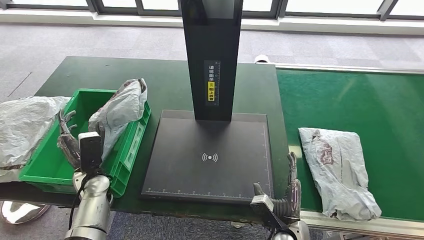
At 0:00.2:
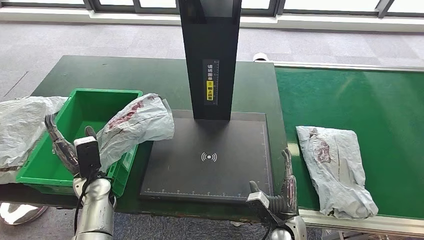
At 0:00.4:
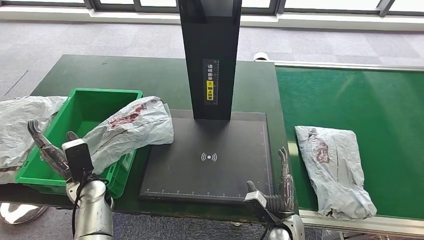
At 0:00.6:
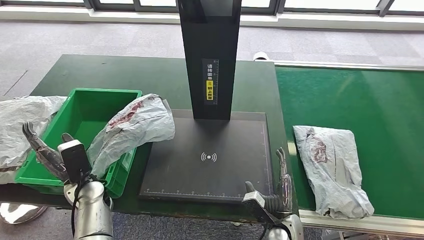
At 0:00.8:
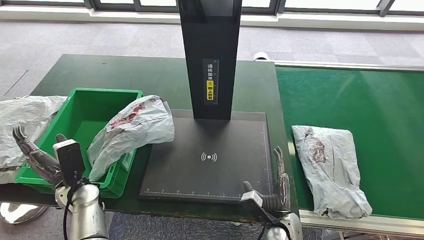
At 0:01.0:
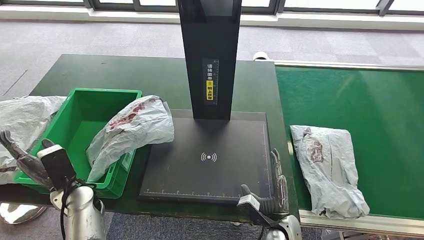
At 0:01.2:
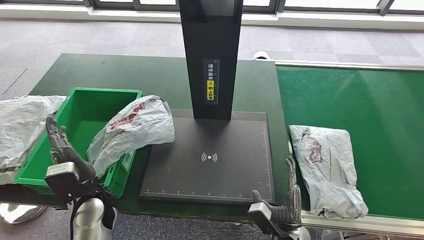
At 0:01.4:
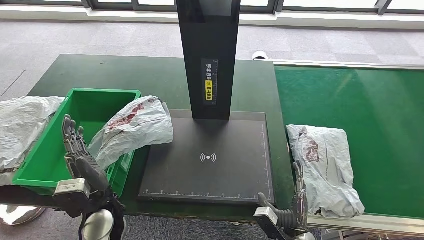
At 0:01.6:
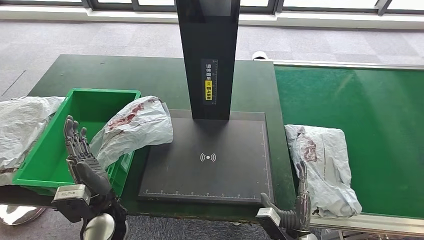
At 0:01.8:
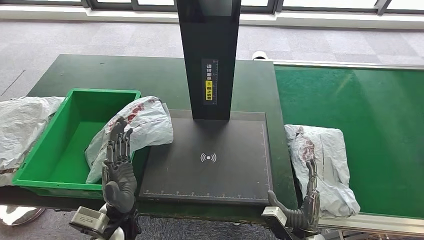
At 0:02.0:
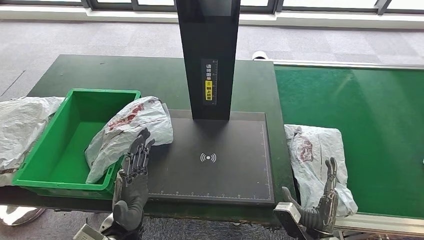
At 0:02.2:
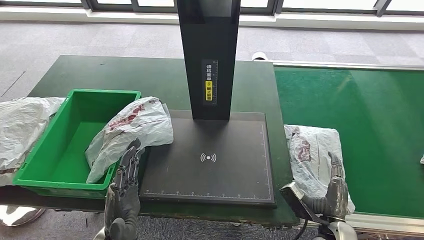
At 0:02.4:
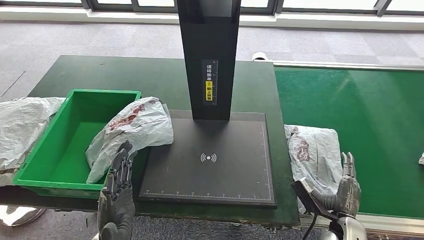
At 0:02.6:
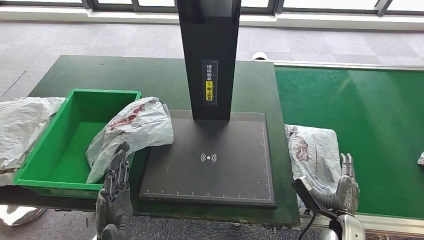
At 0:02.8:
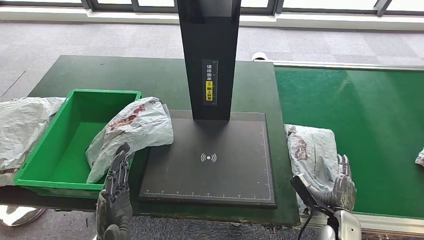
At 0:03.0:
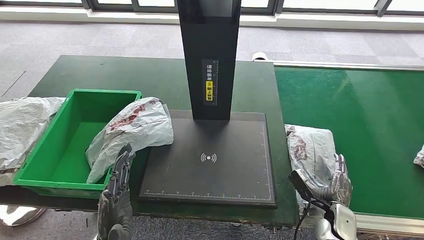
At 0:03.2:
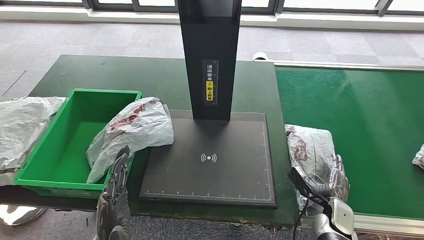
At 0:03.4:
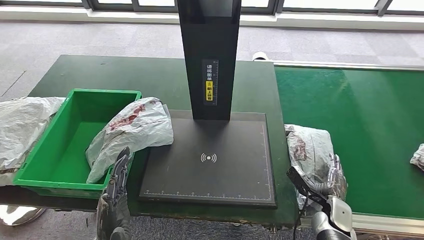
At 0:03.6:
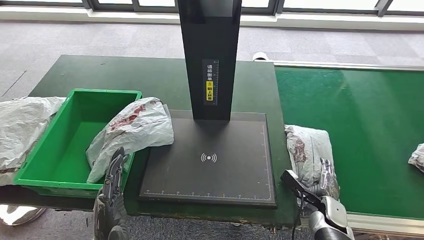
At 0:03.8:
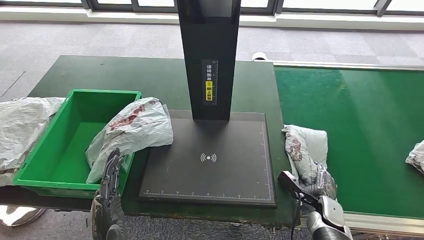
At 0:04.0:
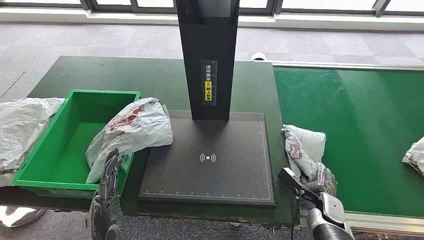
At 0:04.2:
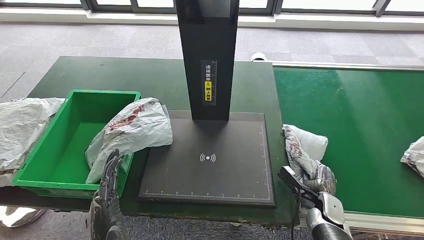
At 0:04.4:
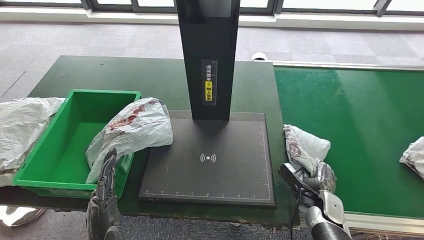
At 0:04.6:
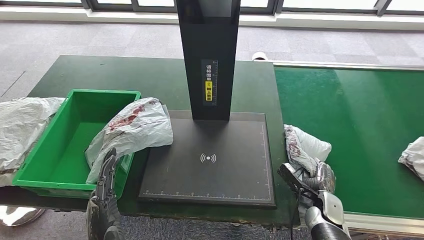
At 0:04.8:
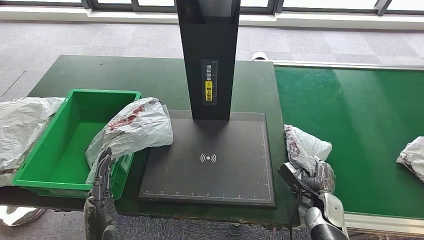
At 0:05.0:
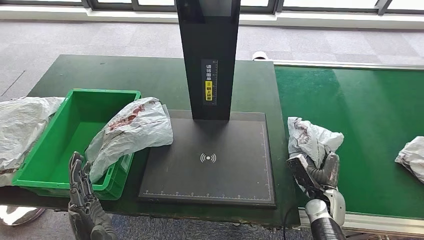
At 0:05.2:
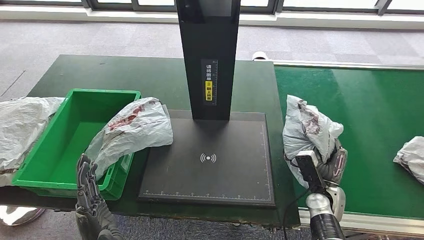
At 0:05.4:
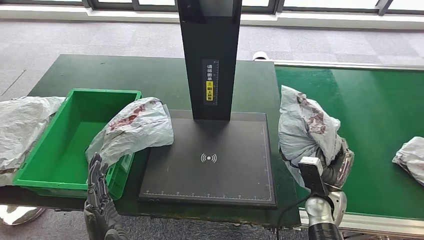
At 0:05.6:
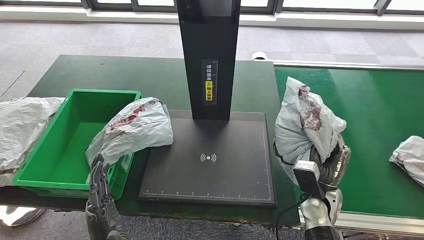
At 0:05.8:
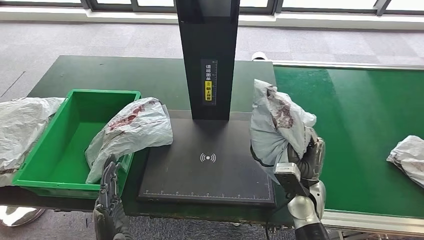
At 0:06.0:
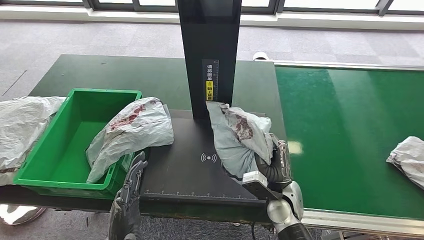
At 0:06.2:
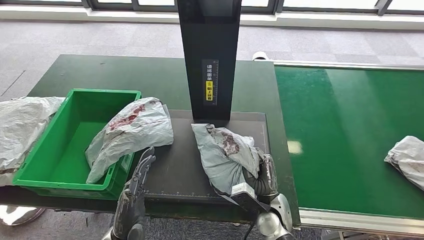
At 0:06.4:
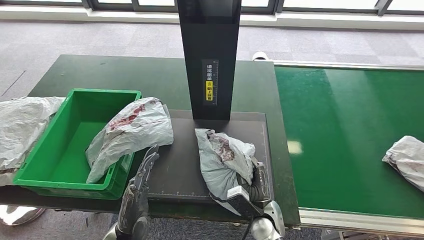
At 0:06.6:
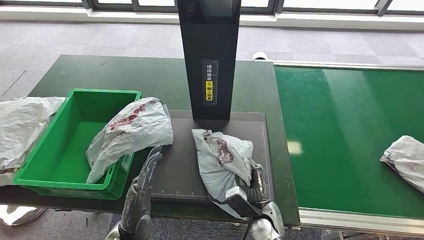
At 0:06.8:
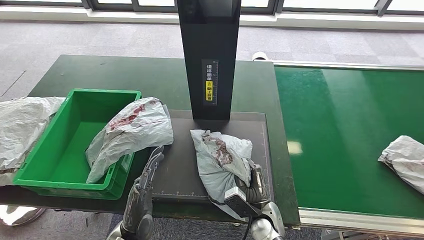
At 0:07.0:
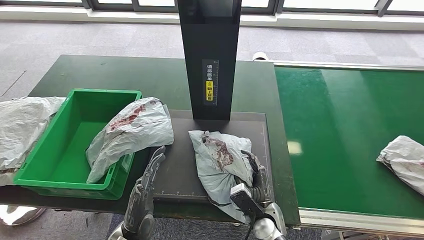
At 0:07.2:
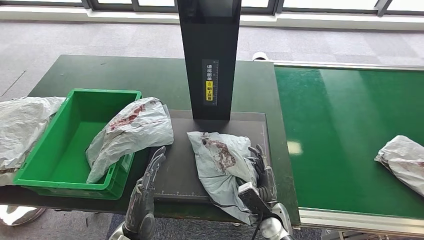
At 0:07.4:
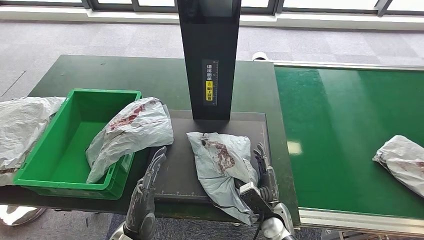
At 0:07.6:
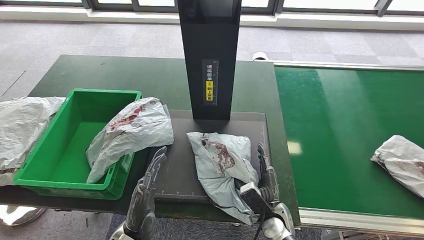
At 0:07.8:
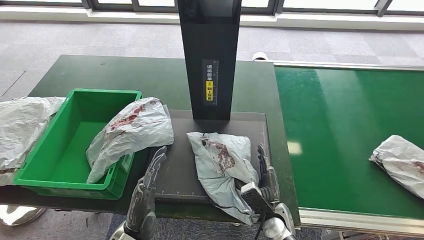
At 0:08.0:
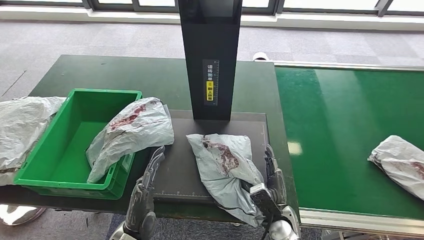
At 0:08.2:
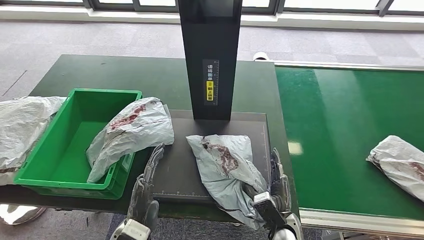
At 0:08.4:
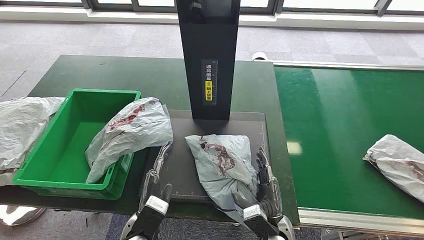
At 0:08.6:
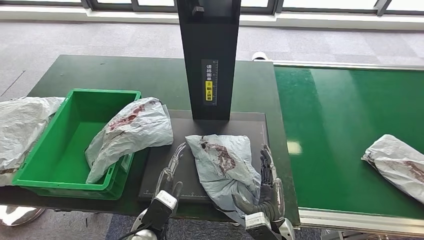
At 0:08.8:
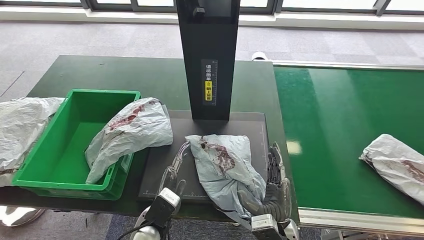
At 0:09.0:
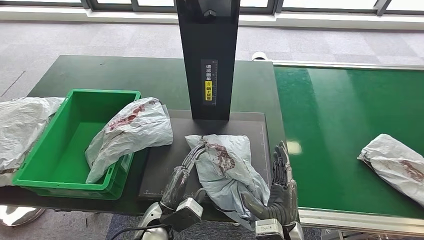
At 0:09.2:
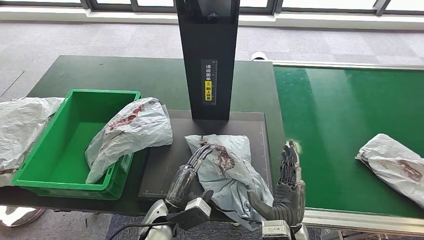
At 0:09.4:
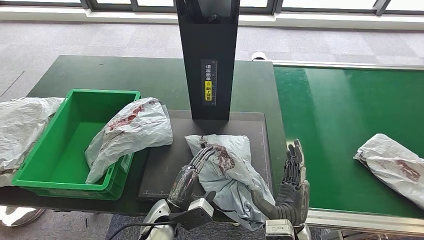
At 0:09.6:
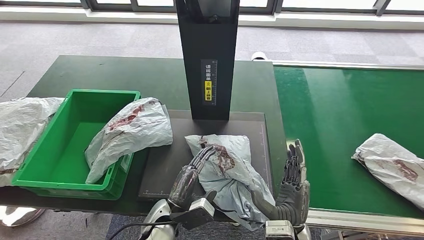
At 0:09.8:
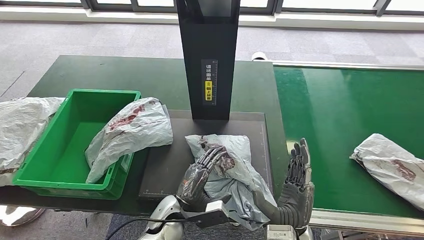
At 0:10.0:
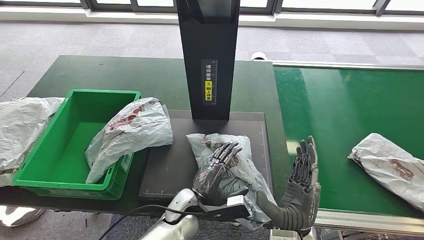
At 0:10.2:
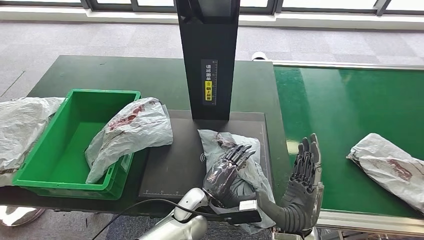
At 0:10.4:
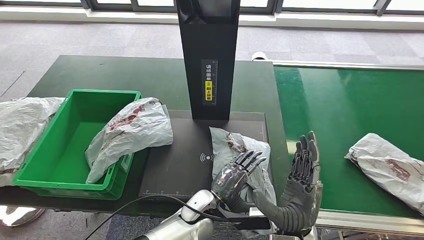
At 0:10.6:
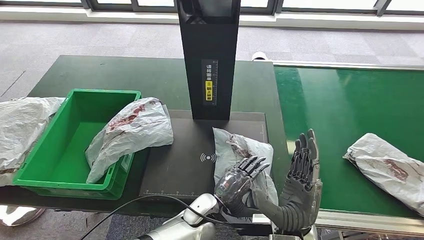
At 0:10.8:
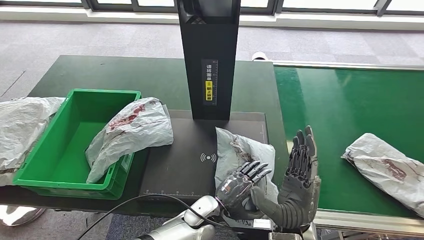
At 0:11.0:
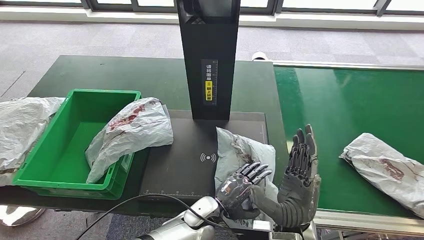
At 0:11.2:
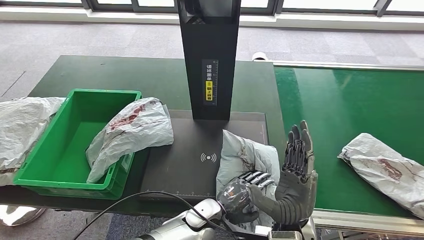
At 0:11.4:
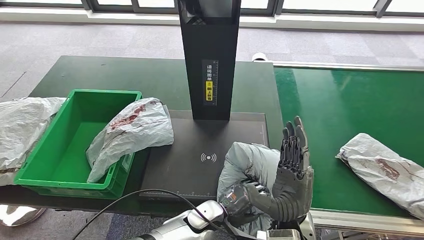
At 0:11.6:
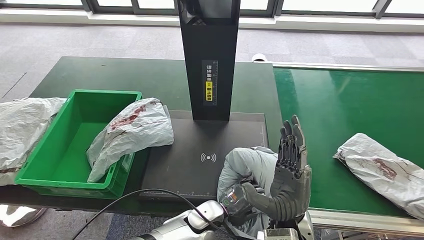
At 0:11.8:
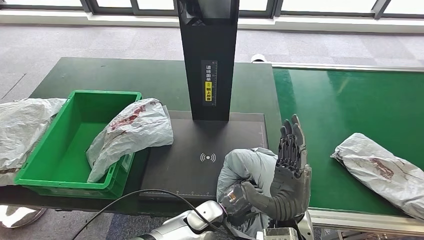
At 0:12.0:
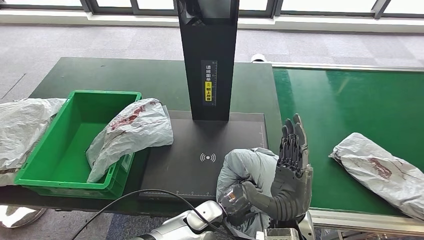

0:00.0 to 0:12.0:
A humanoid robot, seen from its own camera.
Step, 0:01.6 to 0:05.4: Pick up the parcel from the conveyor belt.
Step, 0:06.0 to 0:08.8: Place the parcel onto the inbound machine.
0:01.6 to 0:03.0: The right hand is displaced to the right and forward by approximately 15 cm. Meanwhile the left hand is displaced backward by some 10 cm.
0:03.0 to 0:04.4: The hands stay close to where they were, moving slightly.
0:06.0 to 0:07.6: The right hand heads downward, covering about 10 cm.
0:07.6 to 0:09.0: The right hand is displaced upward and backward by about 10 cm. The left hand moves some 10 cm.
0:09.0 to 0:10.4: The left hand shifts some 10 cm to the right. Meanwhile the right hand travels upward by about 5 cm.

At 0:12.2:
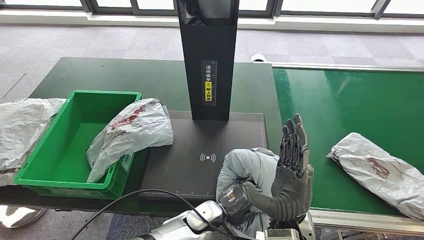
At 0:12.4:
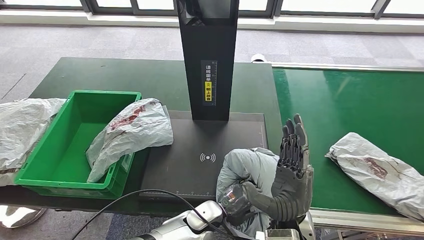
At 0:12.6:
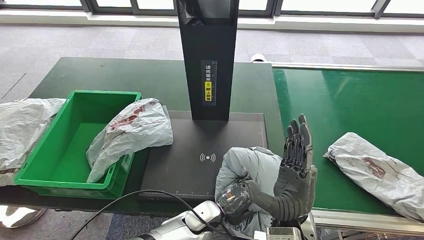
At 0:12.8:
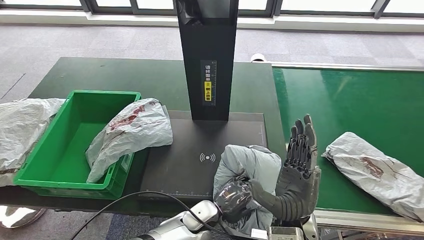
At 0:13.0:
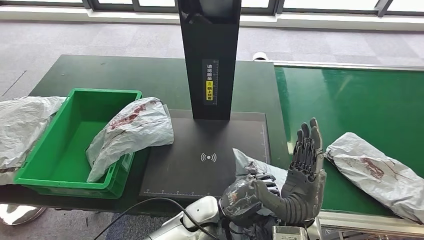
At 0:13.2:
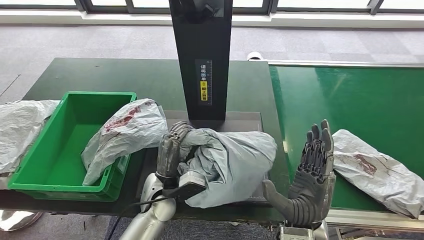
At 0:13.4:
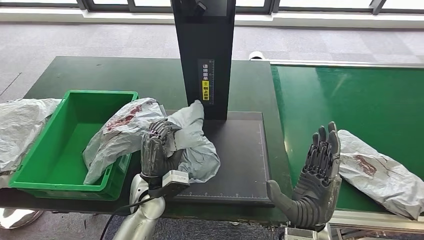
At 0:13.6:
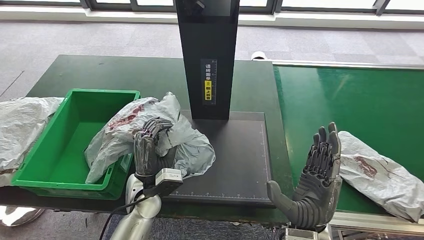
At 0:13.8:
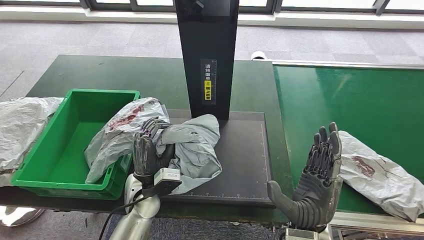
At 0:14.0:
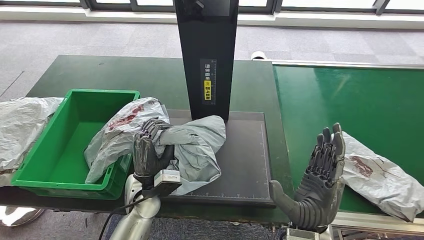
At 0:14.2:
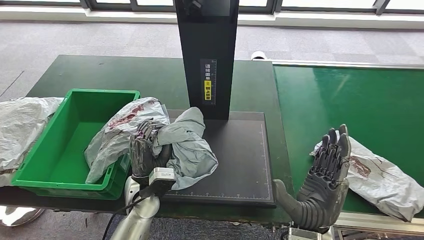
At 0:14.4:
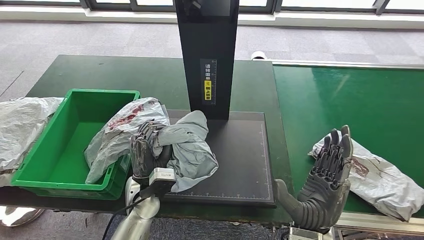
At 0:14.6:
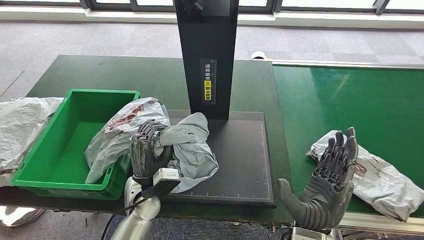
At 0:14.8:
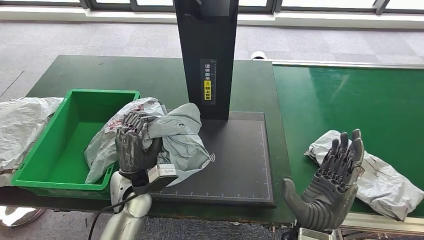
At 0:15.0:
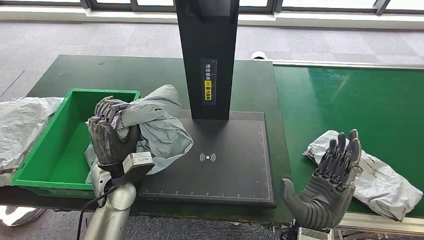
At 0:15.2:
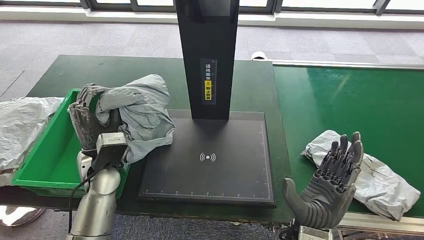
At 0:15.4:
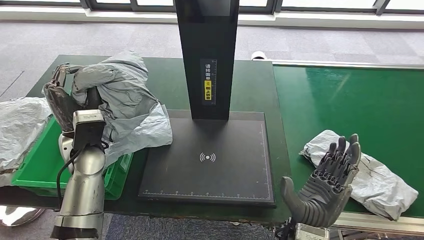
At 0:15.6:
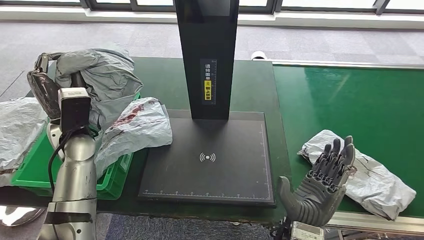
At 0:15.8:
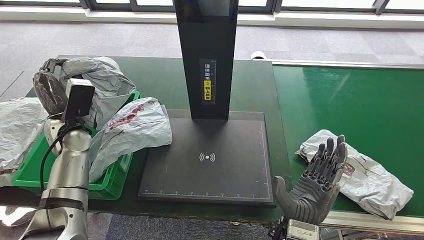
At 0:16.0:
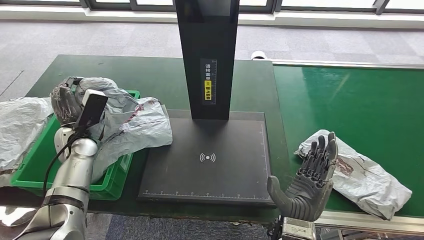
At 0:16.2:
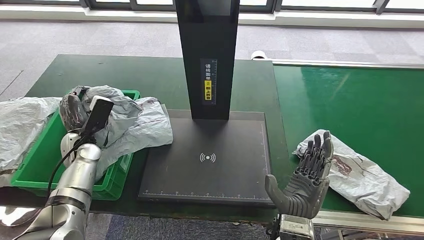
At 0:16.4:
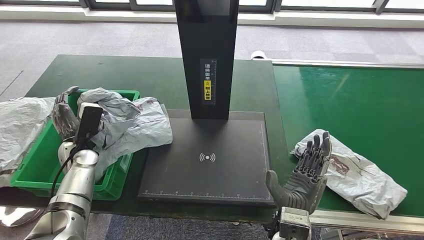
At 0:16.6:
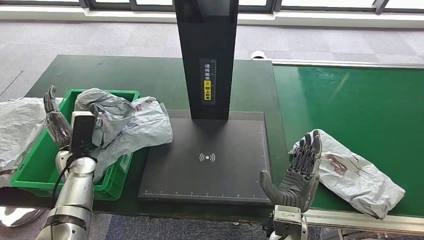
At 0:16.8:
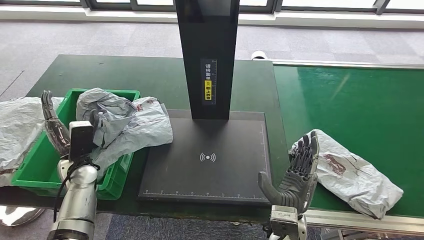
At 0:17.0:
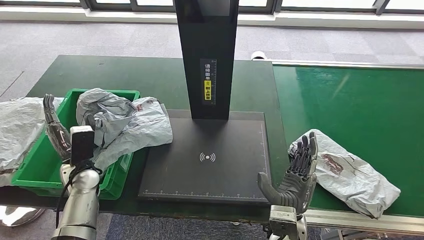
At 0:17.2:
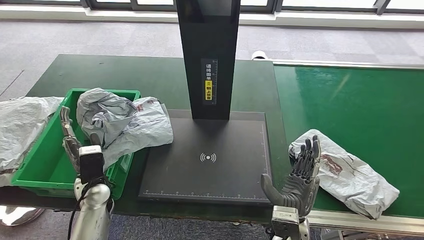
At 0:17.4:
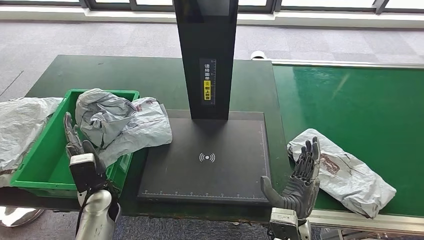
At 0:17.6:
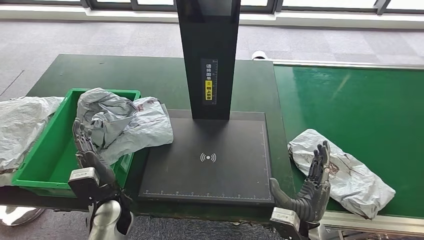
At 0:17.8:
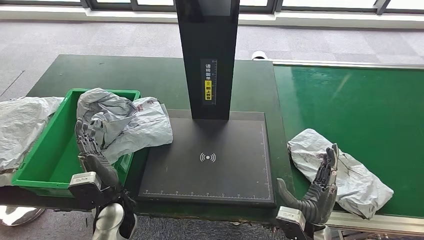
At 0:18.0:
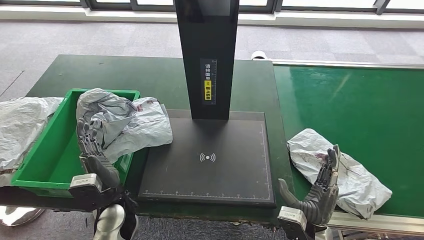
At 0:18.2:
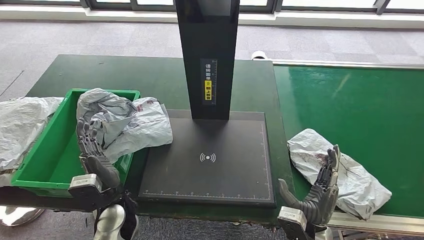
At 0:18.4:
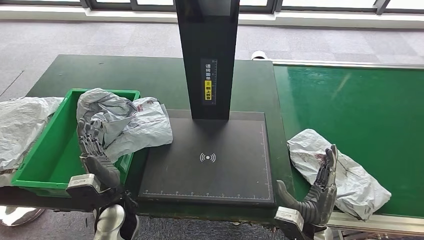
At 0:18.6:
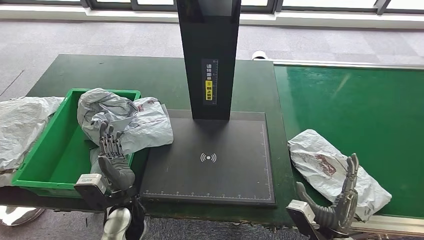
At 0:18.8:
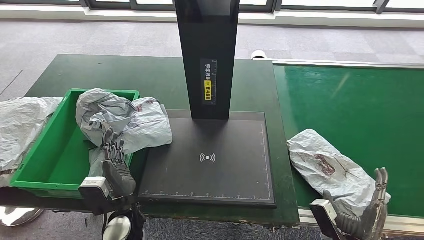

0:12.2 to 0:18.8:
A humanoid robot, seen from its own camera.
Step, 0:14.4 to 0:17.4: Place the parcel into the delivery box.
0:17.2 to 0:18.8: The left hand heads to the right and backward, covering about 15 cm. The right hand is displaced to the right by some 15 cm.
